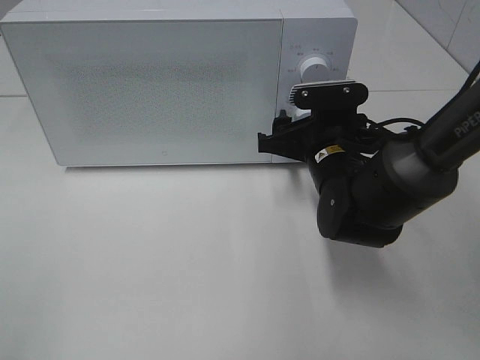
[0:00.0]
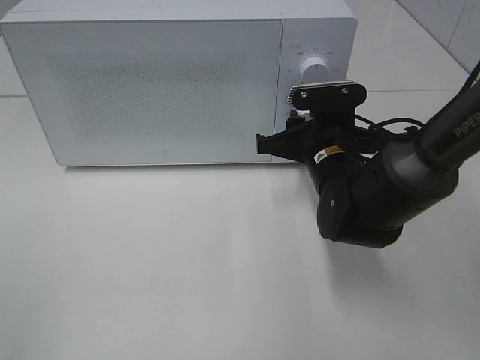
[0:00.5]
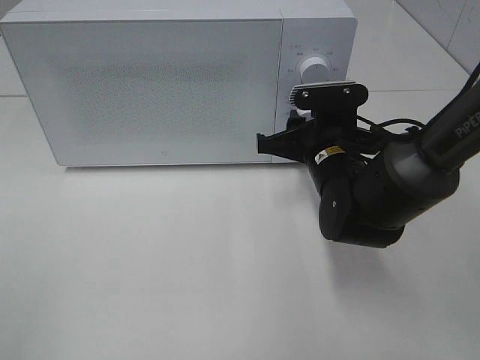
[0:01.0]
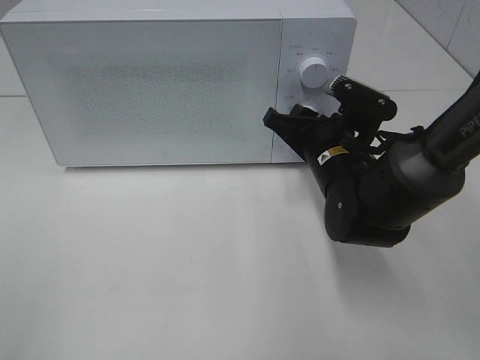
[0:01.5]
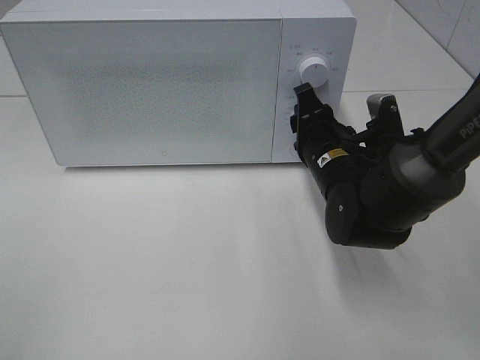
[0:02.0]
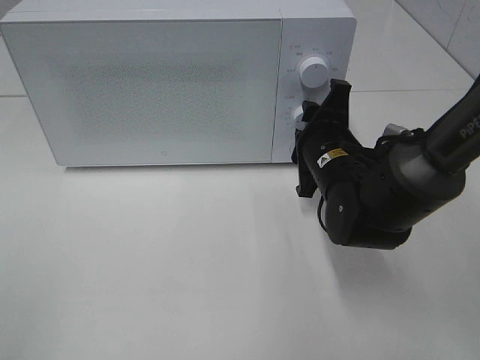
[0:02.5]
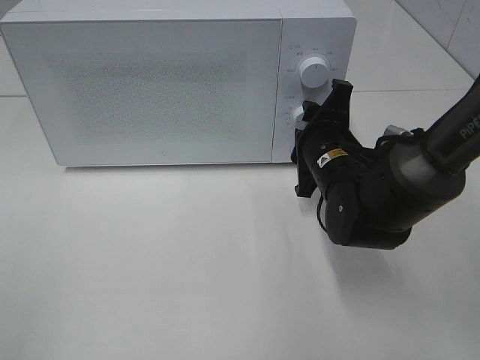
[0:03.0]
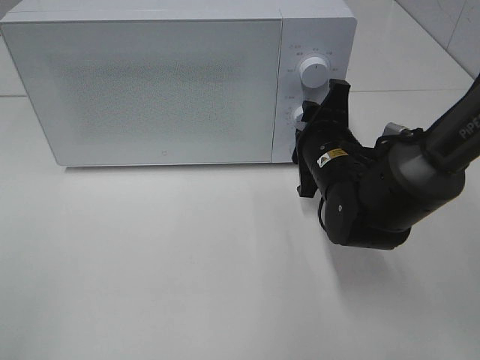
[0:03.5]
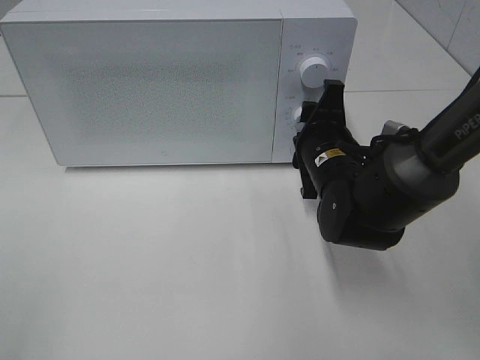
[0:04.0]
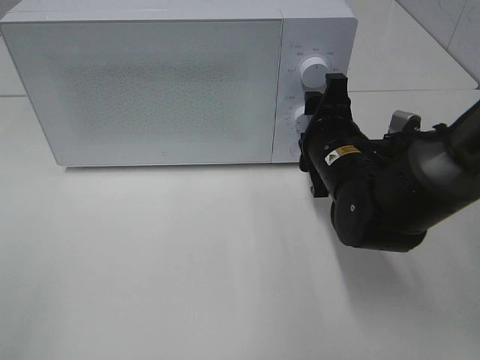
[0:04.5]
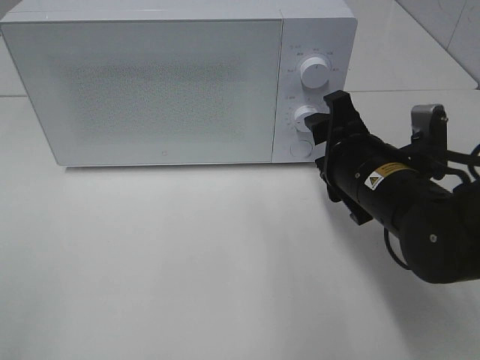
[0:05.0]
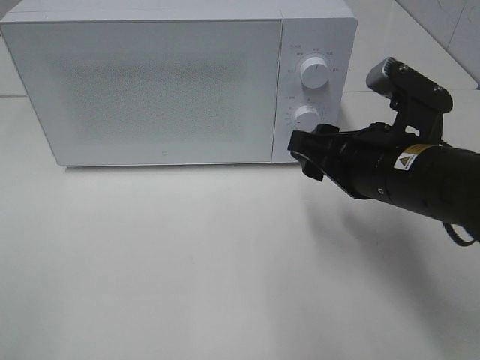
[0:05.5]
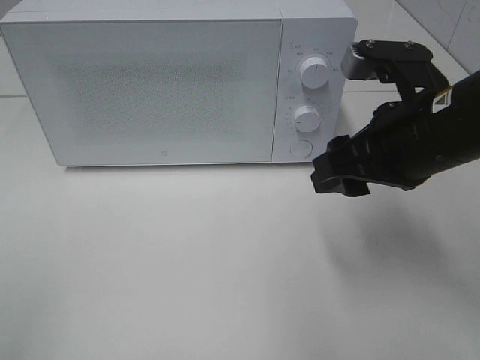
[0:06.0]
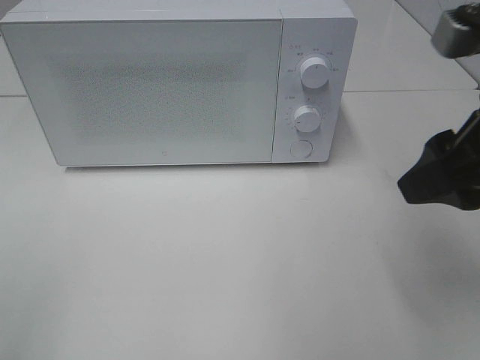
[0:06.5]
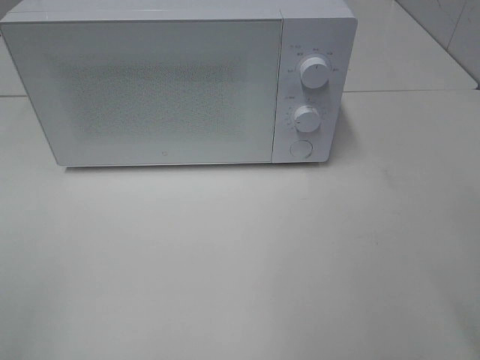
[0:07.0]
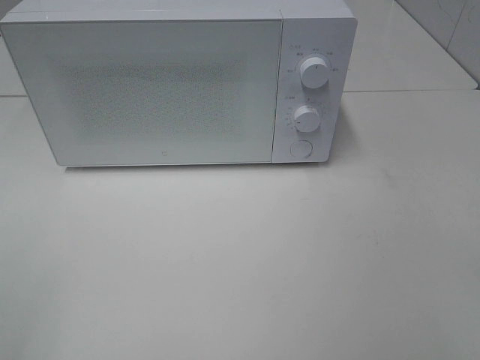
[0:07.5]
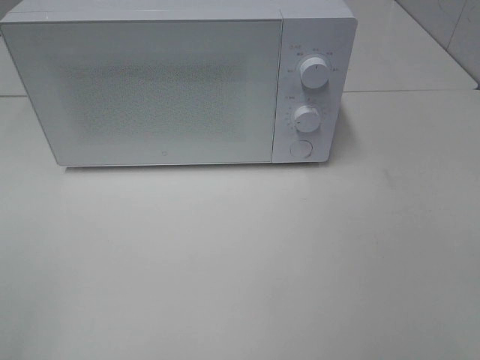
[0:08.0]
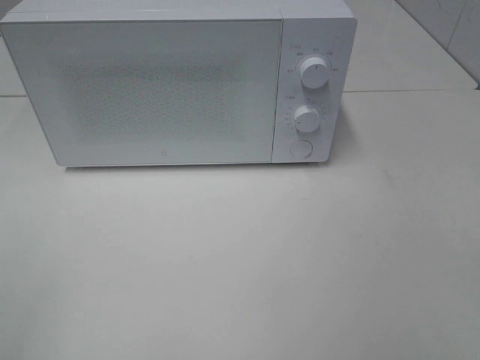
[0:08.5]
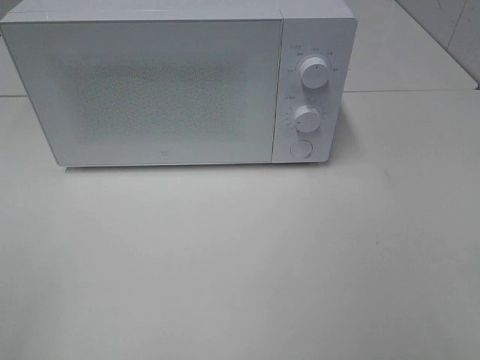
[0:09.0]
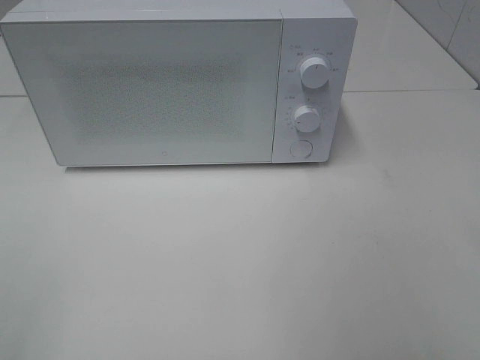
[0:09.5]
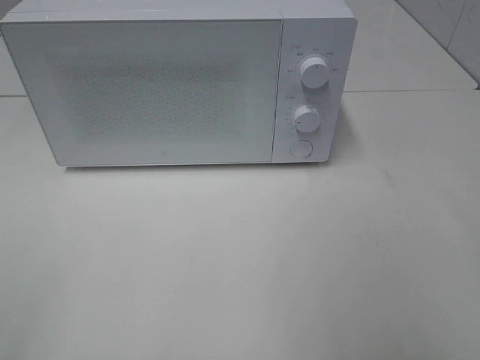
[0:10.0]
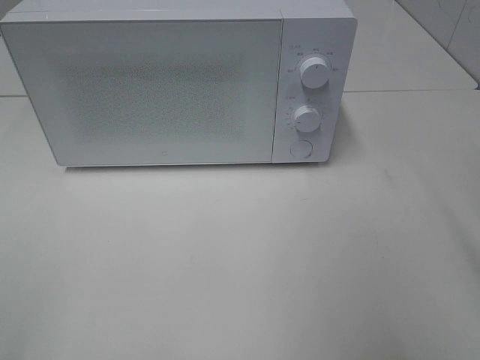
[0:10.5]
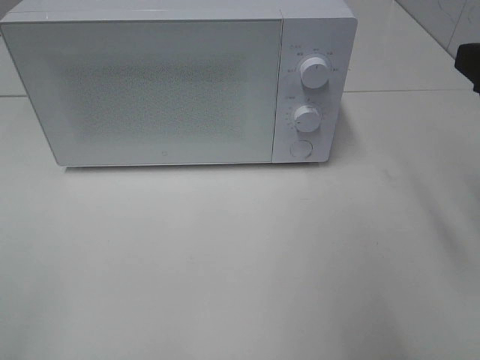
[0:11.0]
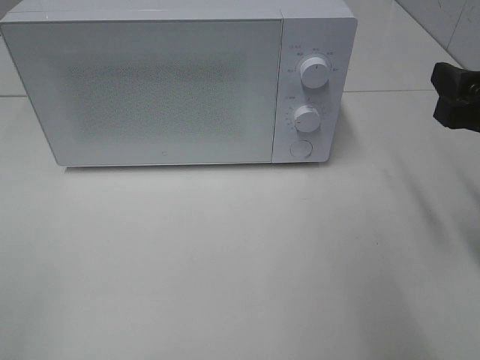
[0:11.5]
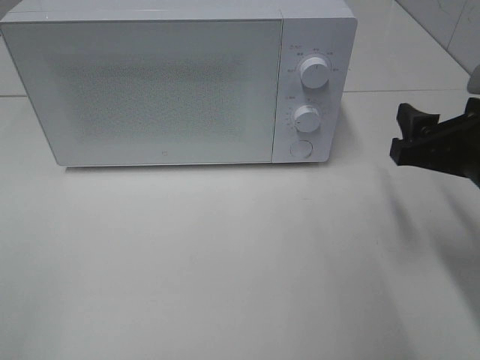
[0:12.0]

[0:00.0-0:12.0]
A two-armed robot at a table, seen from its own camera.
Task of the whole recording: Heat the burger.
Step, 0:00.0 to 0:04.5: Right hand: twist timer button.
0:00.0 to 0:02.0: The right gripper closes.
0:04.0 to 0:06.0: The right gripper goes roughly 15 cm upward and backward.
0:06.0 to 0:08.0: The right gripper heads backward and to the right, covering some 25 cm.
0:10.0 to 0:12.0: The right gripper travels downward and forward by roughly 20 cm.

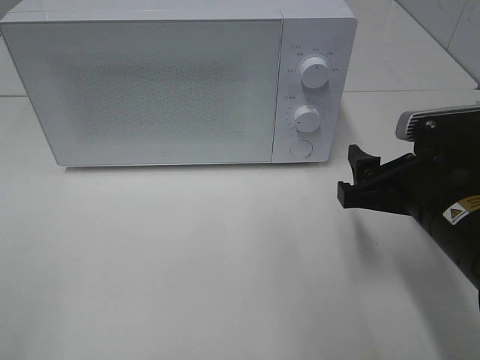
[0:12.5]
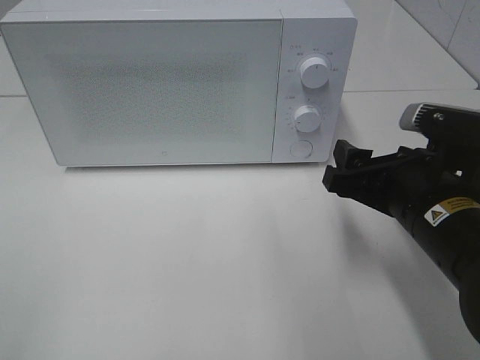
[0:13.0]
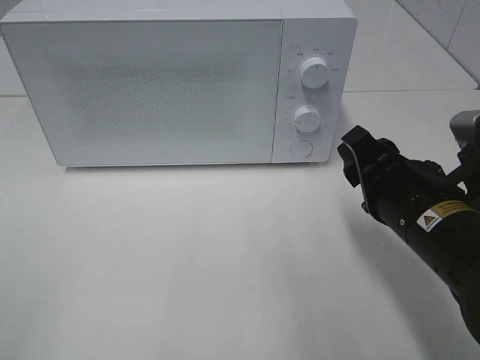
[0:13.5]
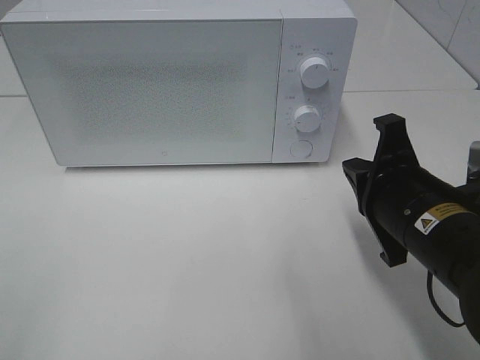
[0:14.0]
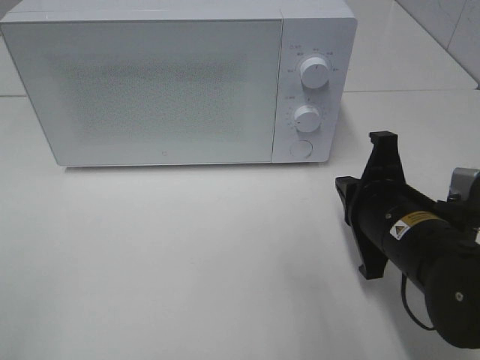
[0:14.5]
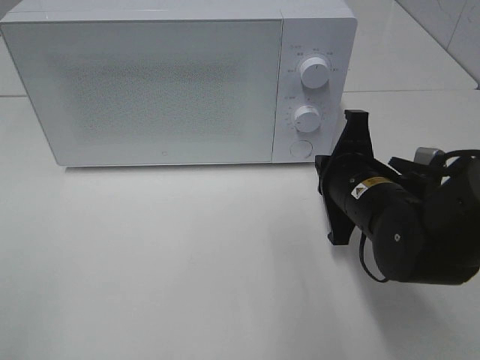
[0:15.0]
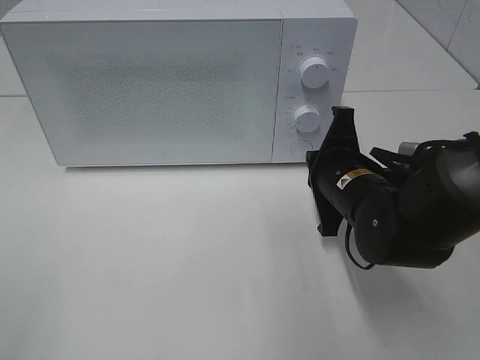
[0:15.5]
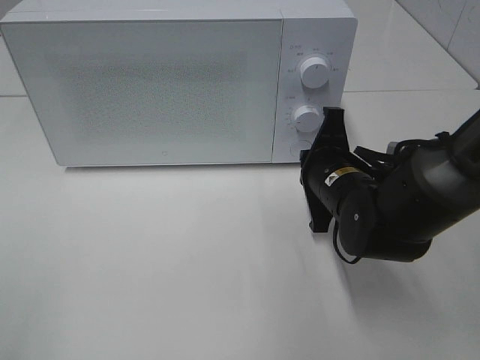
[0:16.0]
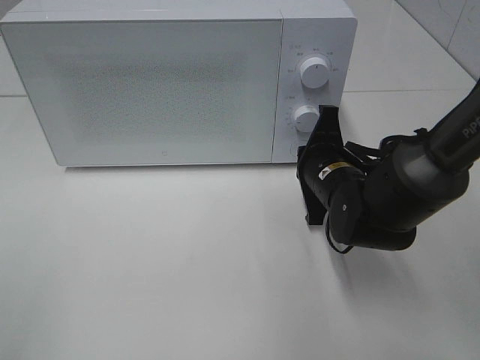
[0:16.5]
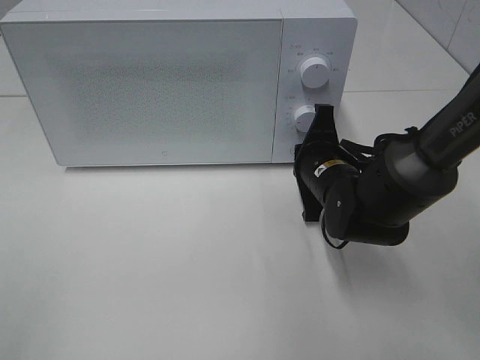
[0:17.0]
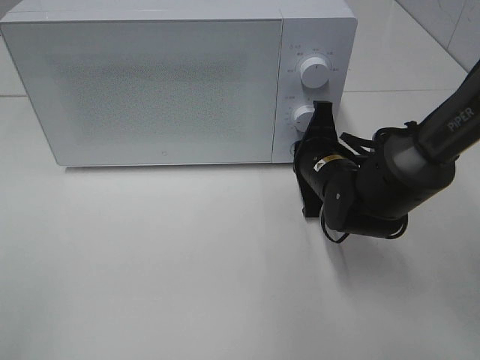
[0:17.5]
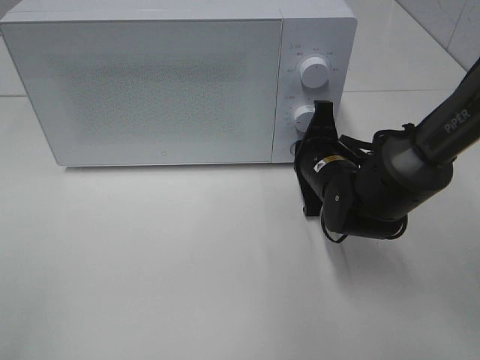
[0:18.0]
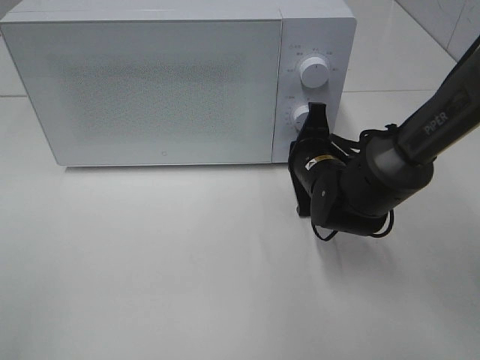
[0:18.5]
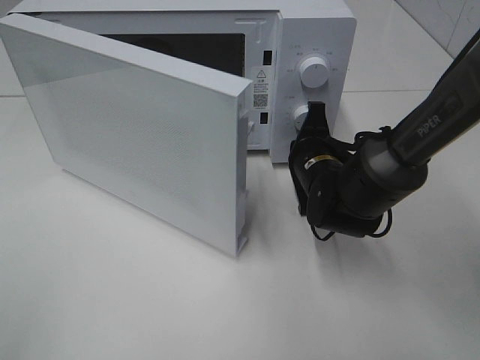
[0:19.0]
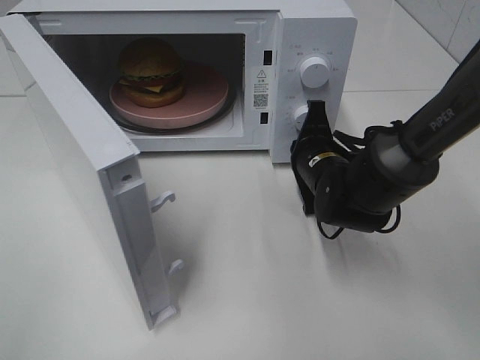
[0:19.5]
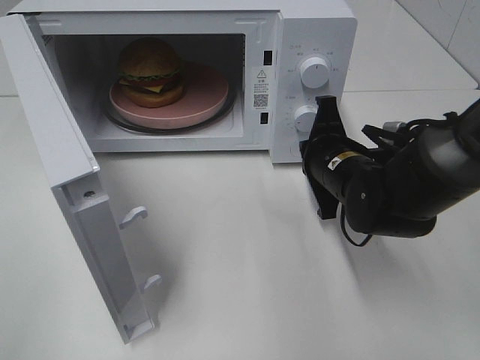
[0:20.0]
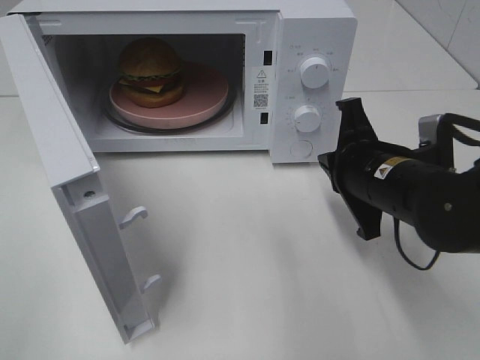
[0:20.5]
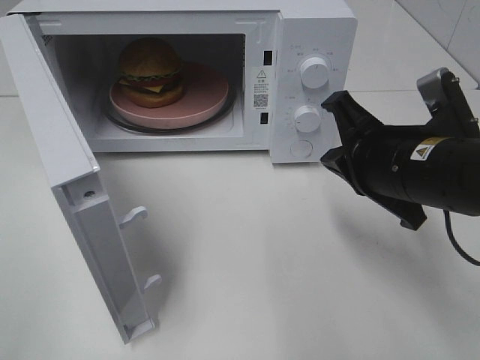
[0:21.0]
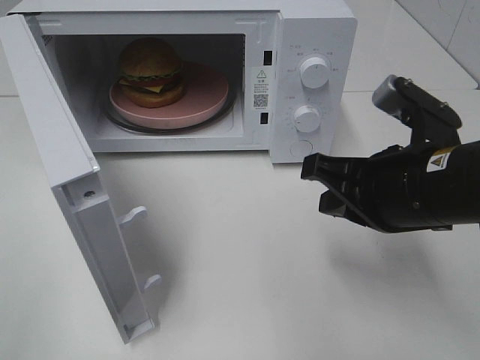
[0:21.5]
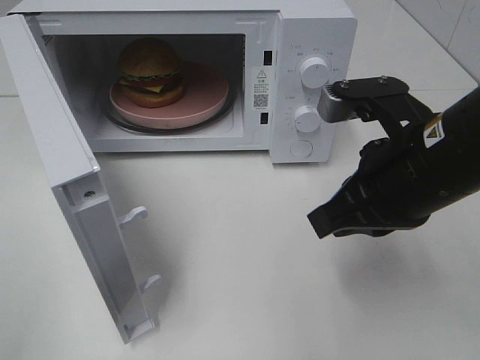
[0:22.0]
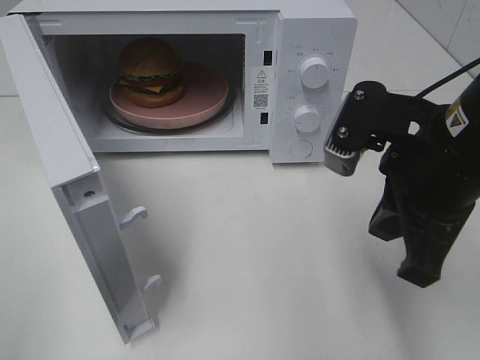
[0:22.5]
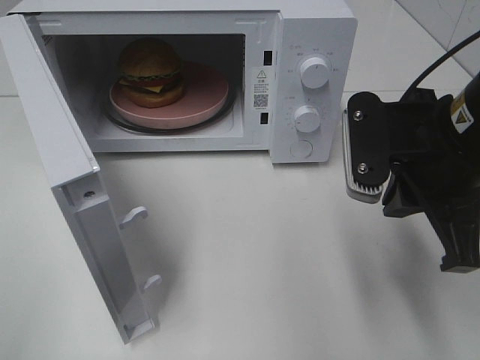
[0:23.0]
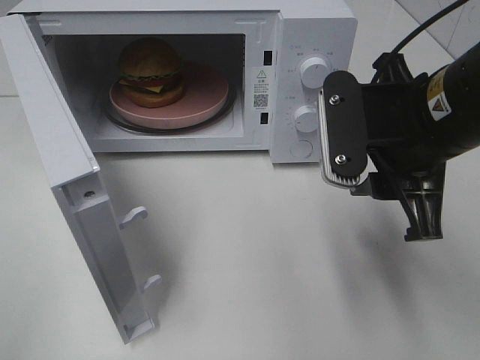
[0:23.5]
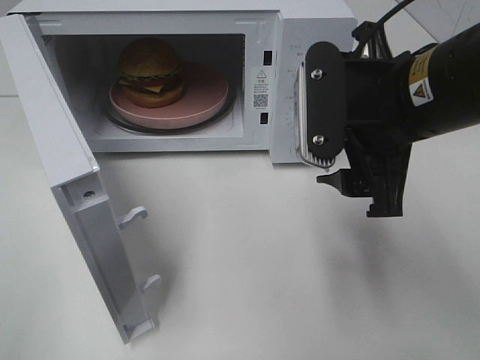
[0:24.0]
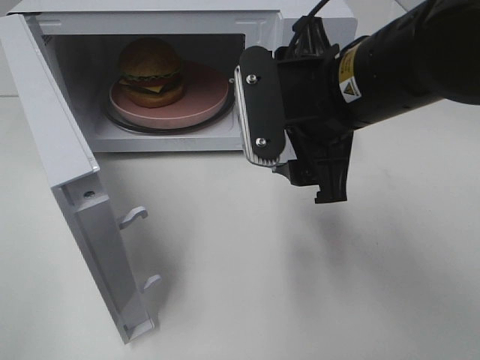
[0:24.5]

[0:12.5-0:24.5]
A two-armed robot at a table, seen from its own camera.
Task of the whole recording: Heat the burger.
Step, 0:12.5 to 0:20.0: Right hand: press the switch.
0:12.5 to 0:14.5: The right gripper closes.
0:14.5 to 0:16.5: The right gripper shifts about 10 cm forward.
0:16.5 to 0:18.5: The grippers make only small movements.
0:18.5 to 0:20.5: The right gripper moves backward and upward, approximately 10 cm.
0:20.5 to 0:22.5: The right gripper moves upward and backward, approximately 10 cm.
0:22.5 to 0:24.5: The right gripper moves to the left, some 10 cm, and opens.

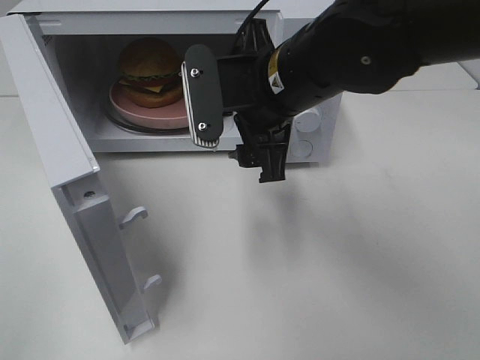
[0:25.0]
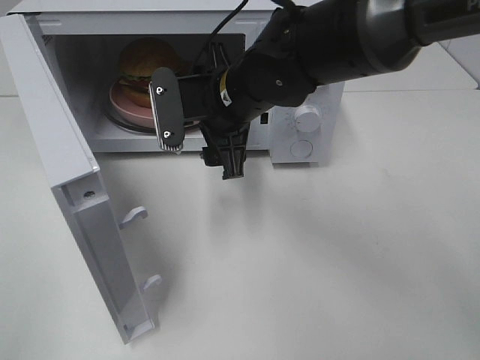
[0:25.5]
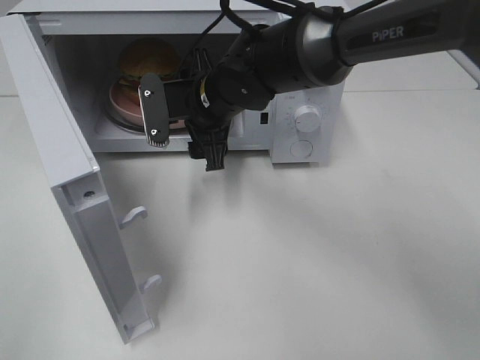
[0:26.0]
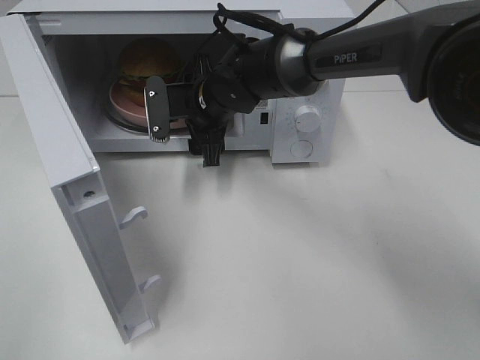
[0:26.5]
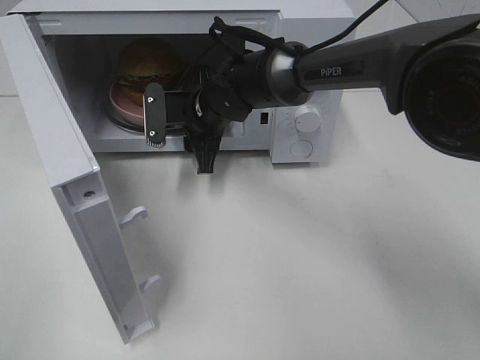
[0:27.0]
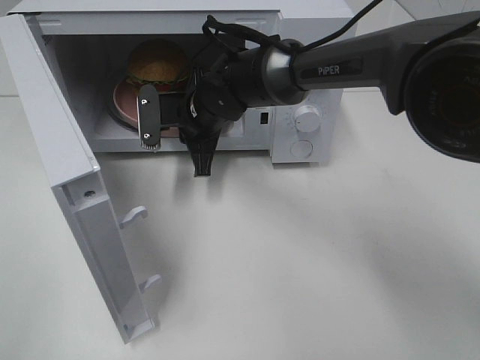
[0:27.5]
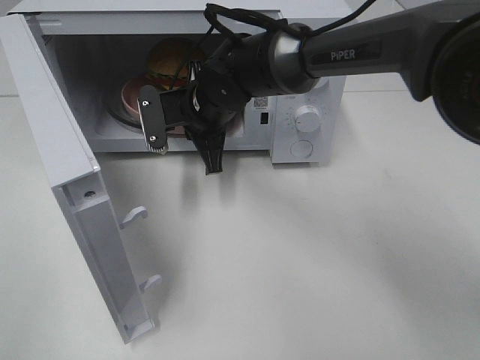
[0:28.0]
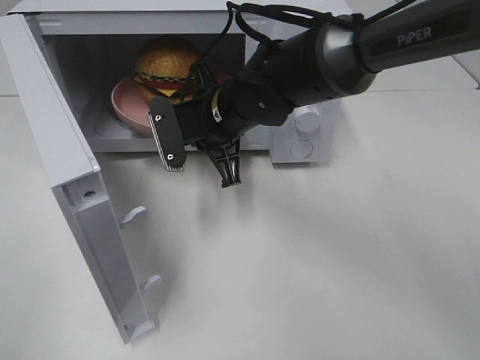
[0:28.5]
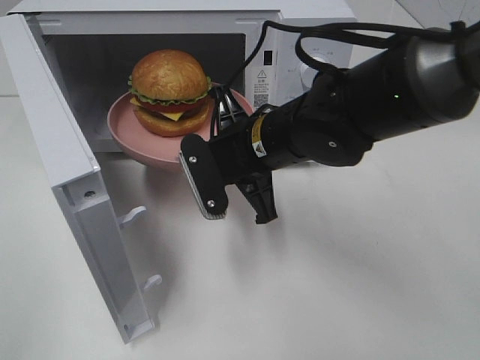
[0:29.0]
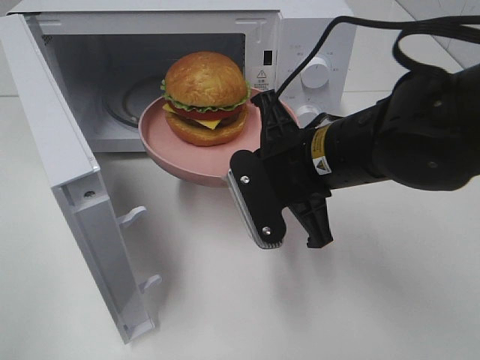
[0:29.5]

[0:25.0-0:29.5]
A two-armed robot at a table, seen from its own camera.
Task of the whole recording: Heat the burger.
Step, 0:25.0 to 0:27.5: Right hand: grab the plate with the hamburger.
0:25.0 to 0:27.0: The right gripper is displaced forward, downward and to the left by some 20 cm.
0:27.0 to 0:29.5: The right gripper heads backward and to the right, covering about 20 cm, and closes up.
